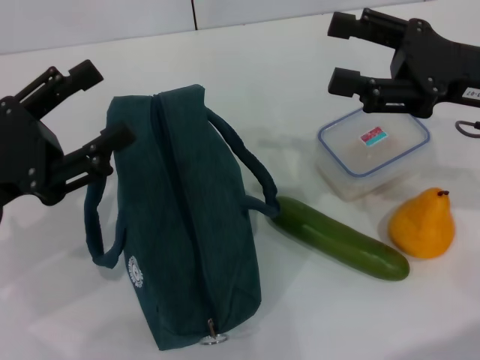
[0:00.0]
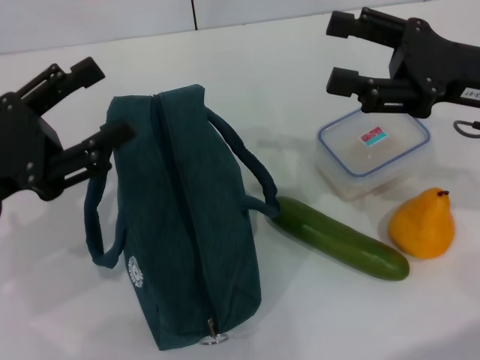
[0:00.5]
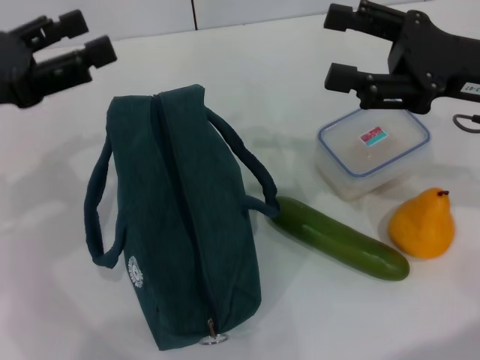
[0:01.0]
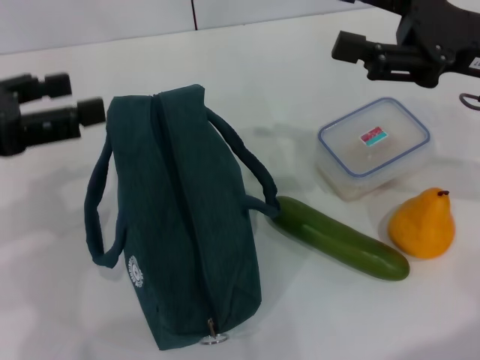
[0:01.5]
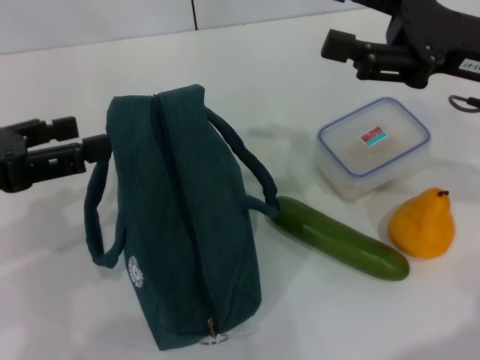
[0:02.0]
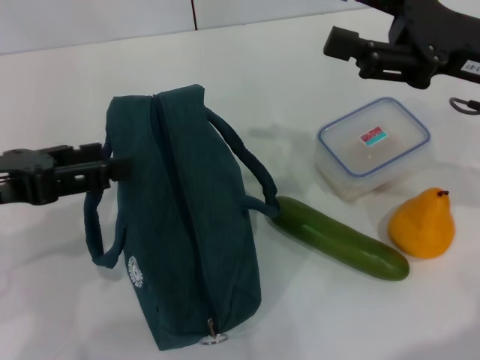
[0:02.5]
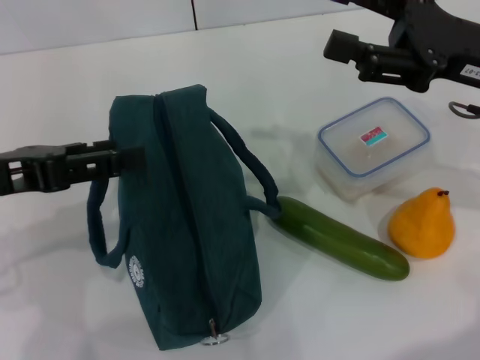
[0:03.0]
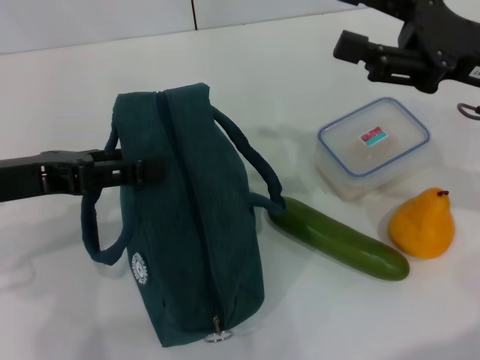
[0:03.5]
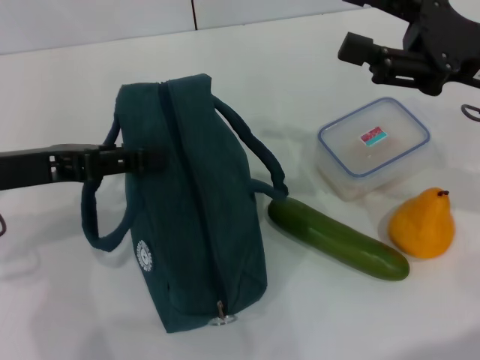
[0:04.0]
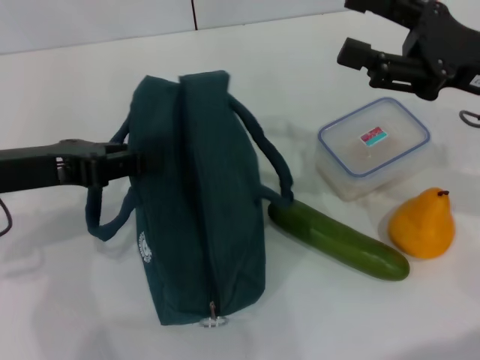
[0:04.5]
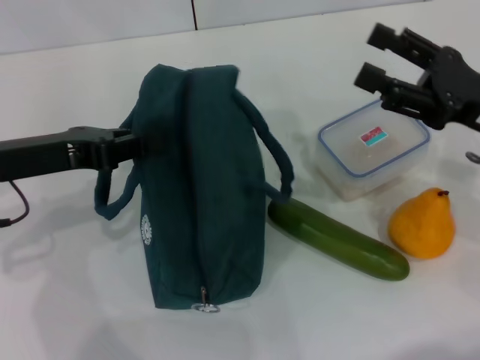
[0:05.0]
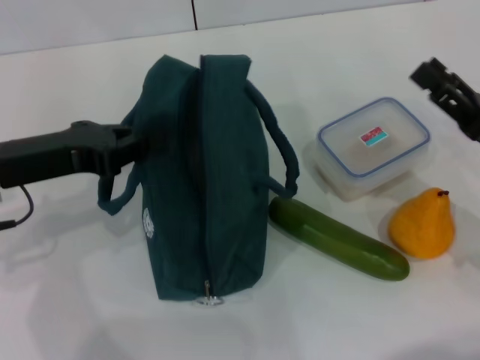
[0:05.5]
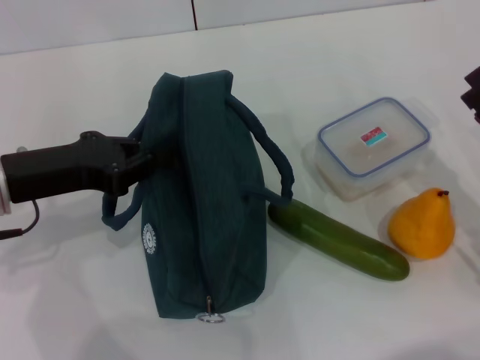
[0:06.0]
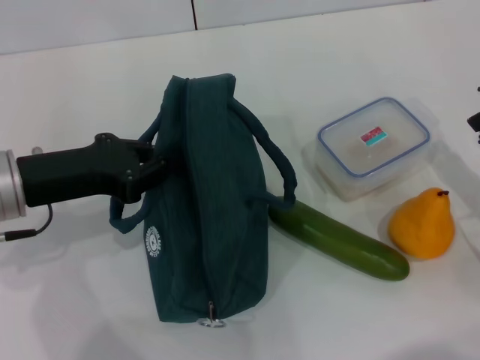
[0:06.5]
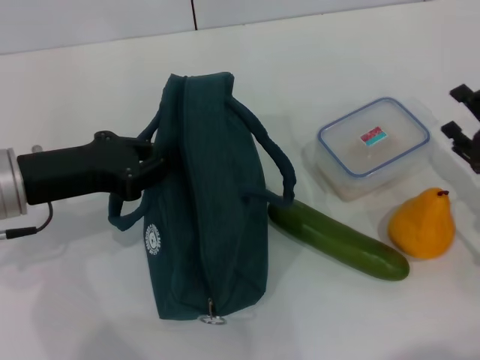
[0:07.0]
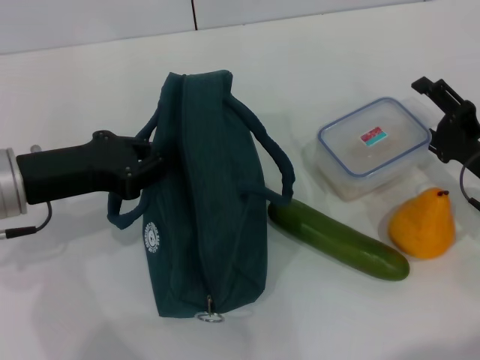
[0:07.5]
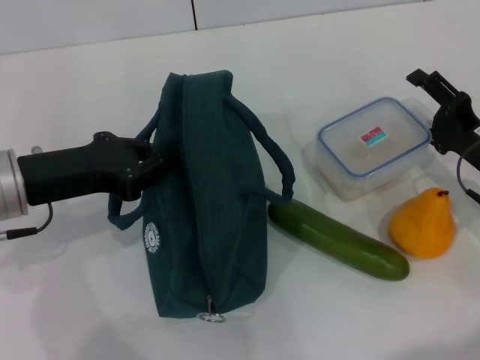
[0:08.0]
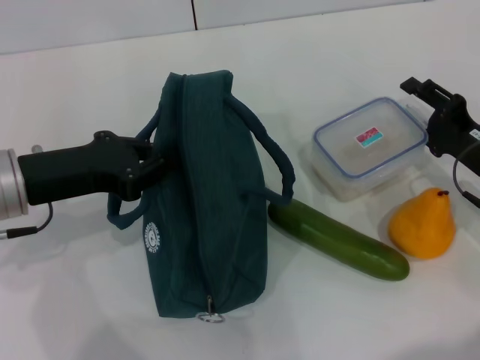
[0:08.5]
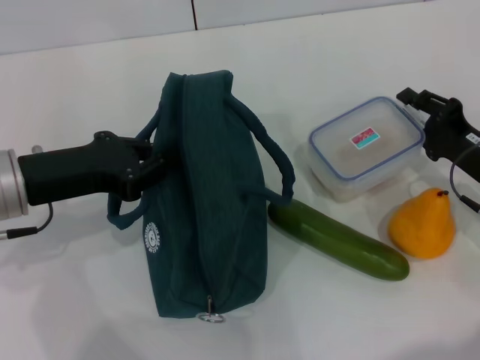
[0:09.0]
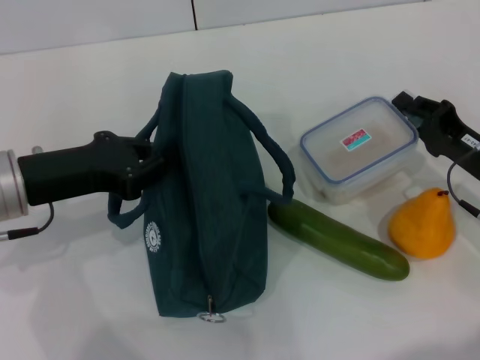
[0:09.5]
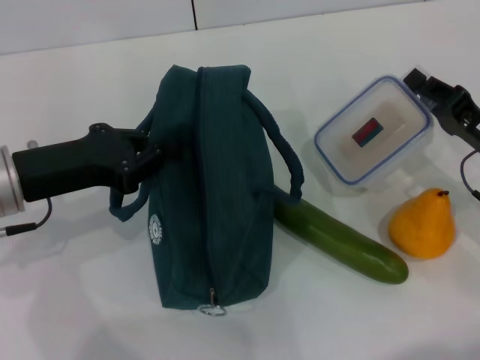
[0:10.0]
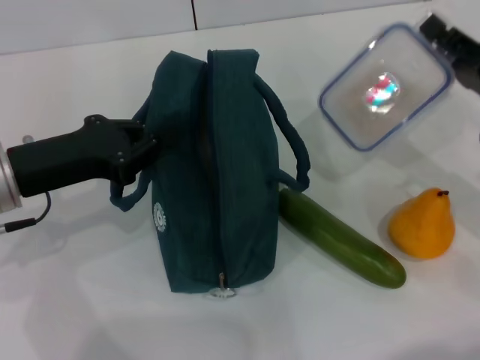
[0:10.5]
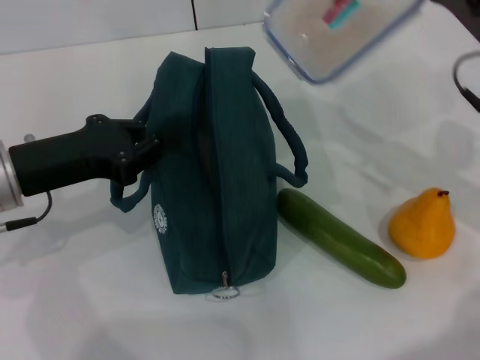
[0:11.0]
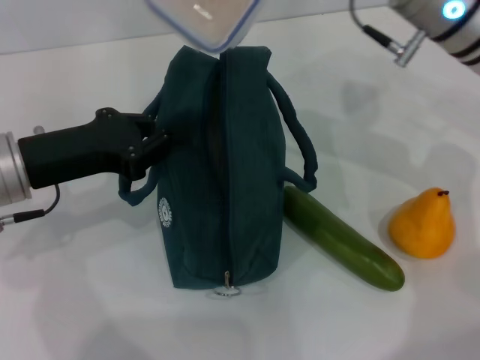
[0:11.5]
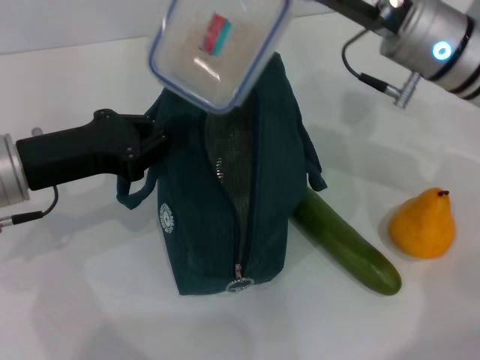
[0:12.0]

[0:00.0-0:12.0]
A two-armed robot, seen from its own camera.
Step, 0:00.0 to 0:05.5: Hold the lunch bag with your left hand.
Step, 0:06.0 to 0:09.5: Pick up the lunch box with your right hand.
0:00.0 to 0:02.0: The left gripper is displaced upward by about 10 cm.
0:02.0 to 0:04.0: The left gripper ends up some 5 cm from where it was.
0:04.0 to 0:06.0: The right gripper moves downward and backward, roughly 15 cm. The left gripper closes.
0:06.0 to 0:08.0: The right gripper goes about 5 cm forward.
0:08.0 to 0:10.0: The right gripper closes up.
0:10.0 to 0:12.0: The right gripper heads upward, to the left and forward, covering approximately 20 cm.

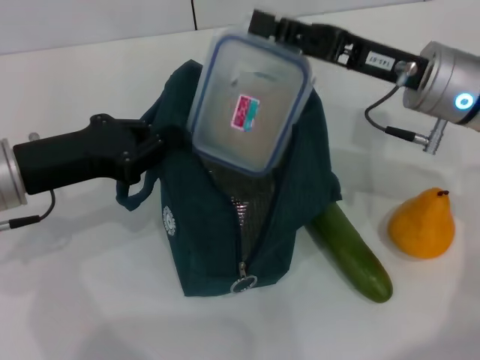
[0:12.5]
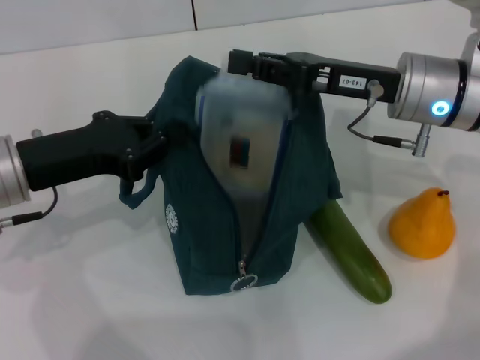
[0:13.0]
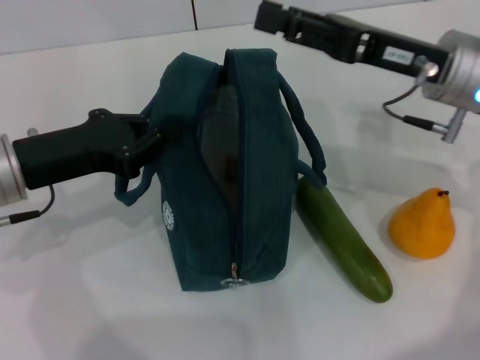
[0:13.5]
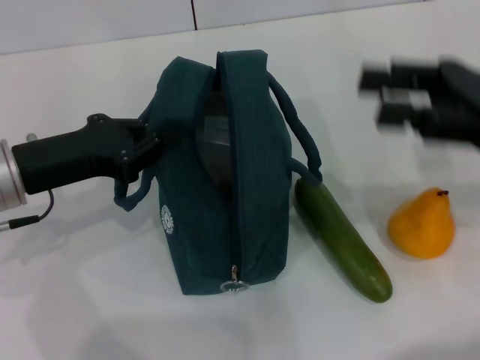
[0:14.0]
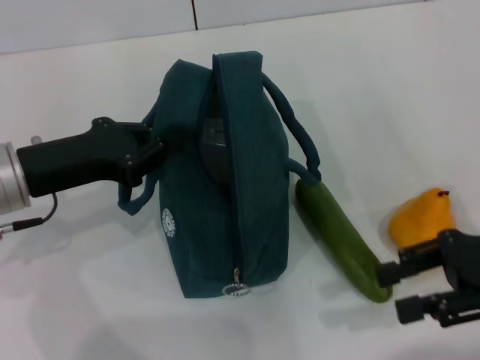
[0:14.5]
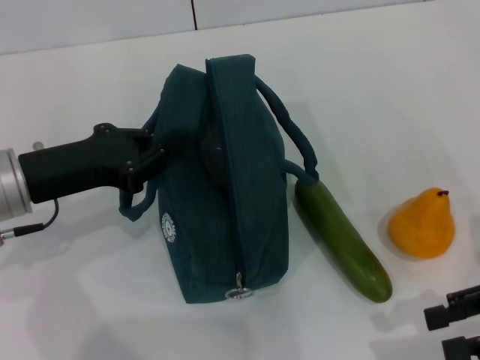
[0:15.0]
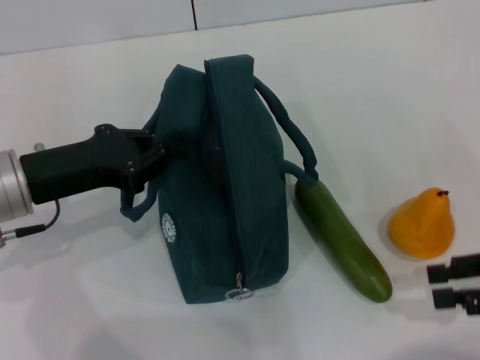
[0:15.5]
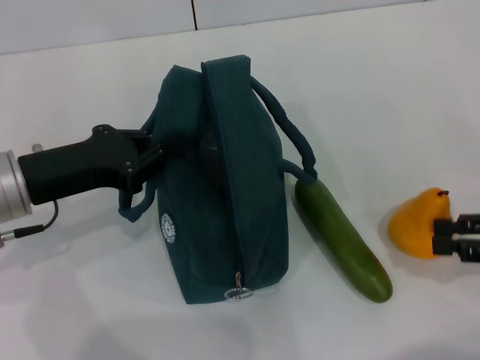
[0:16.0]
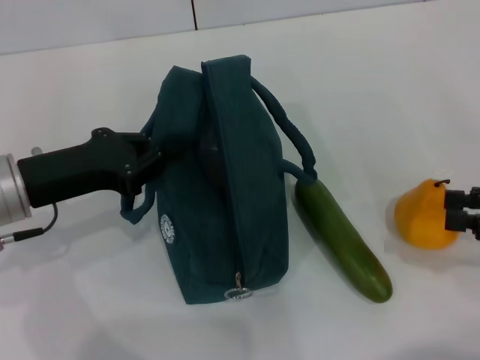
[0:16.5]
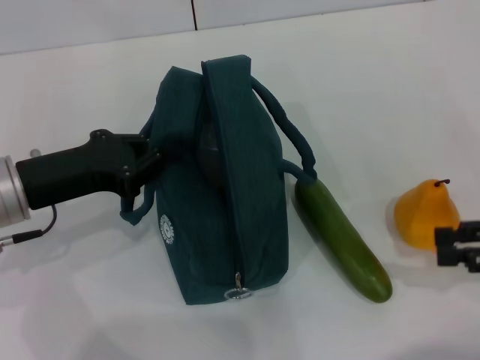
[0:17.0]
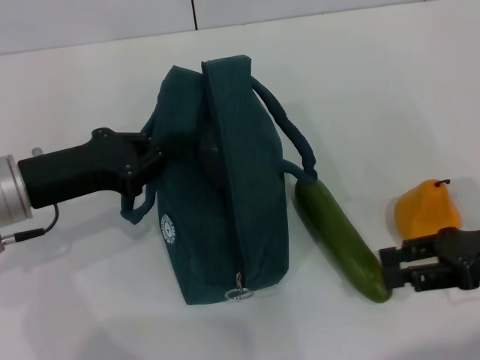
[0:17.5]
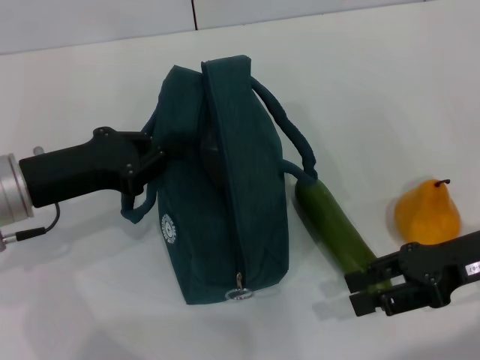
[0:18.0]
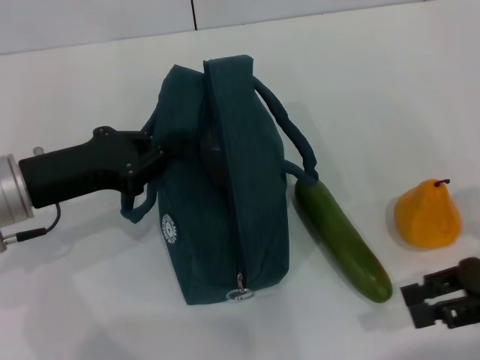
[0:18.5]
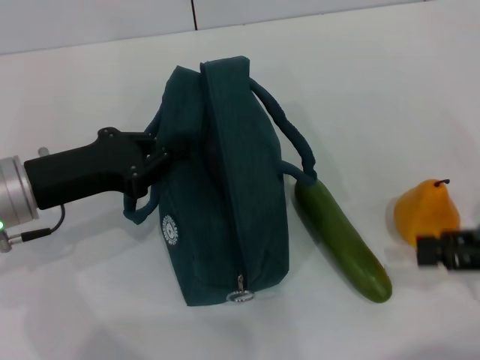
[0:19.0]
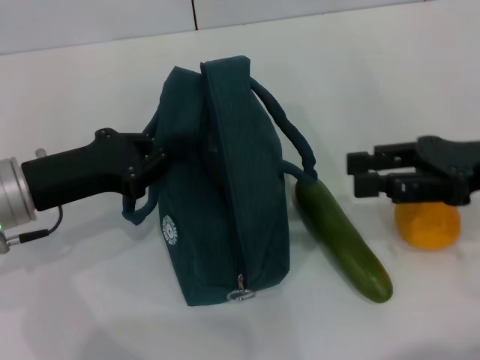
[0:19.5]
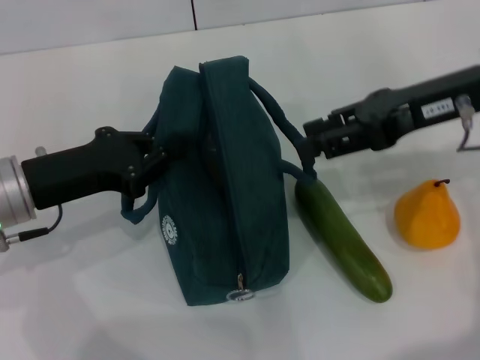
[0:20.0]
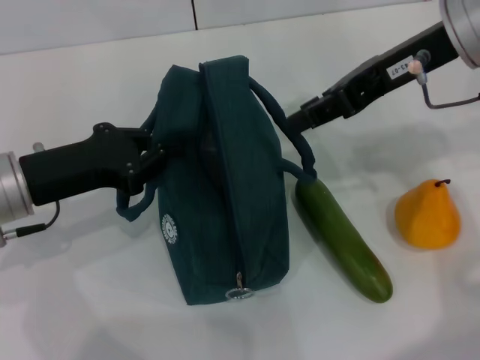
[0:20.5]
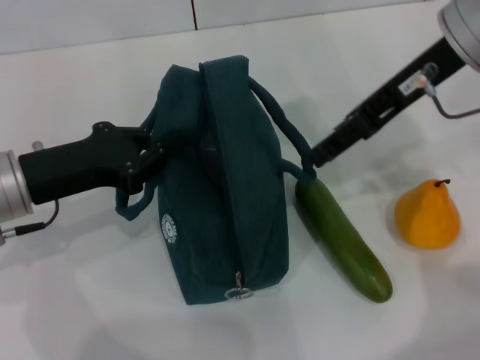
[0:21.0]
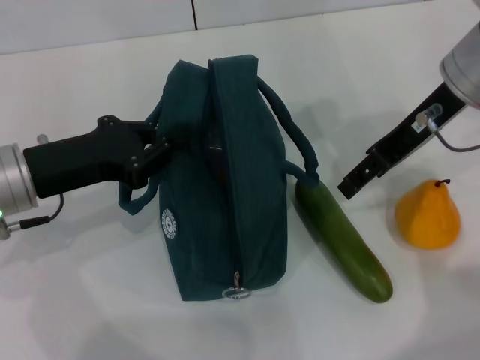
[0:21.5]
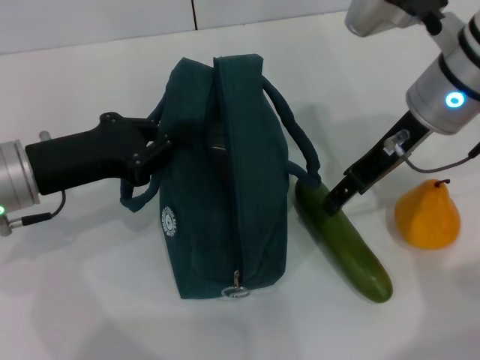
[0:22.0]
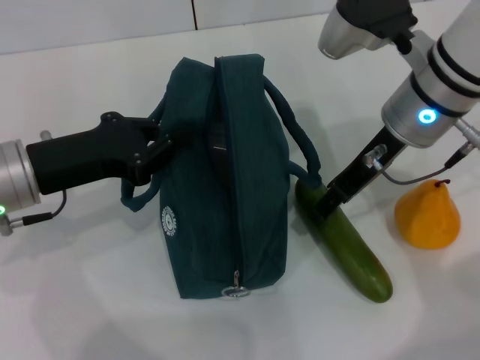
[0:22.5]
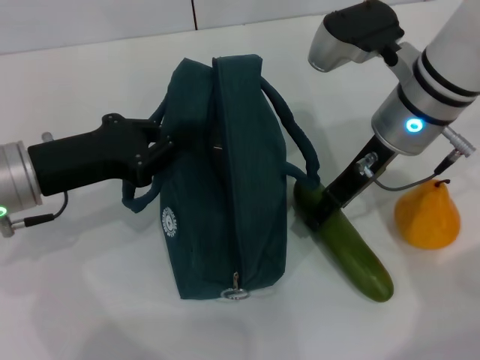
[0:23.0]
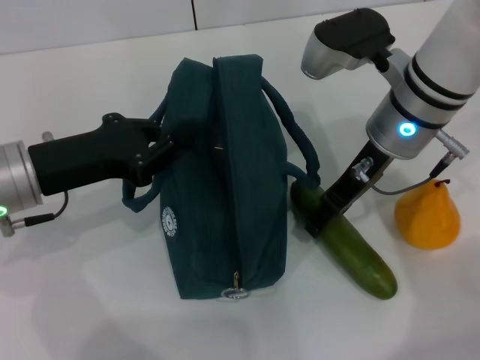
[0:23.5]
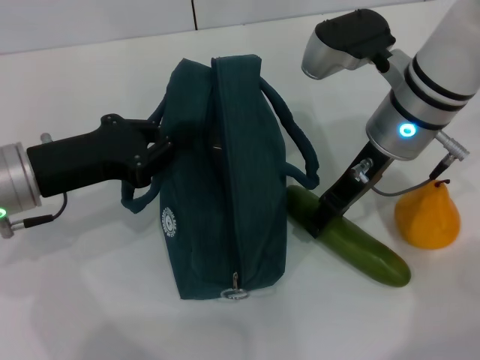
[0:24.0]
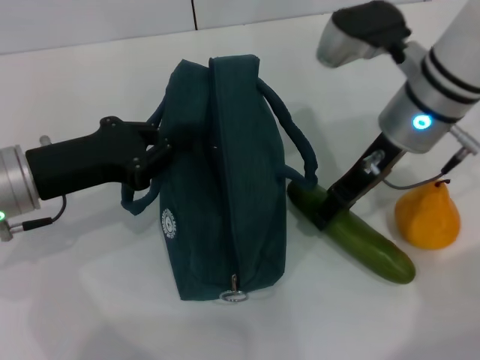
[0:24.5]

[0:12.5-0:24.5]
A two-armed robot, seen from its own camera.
Step, 0:13.5 to 0:24.0: Pick up the cucumber with your right hand.
0:12.5 to 0:14.5: The right gripper shifts approximately 15 cm backward and to the right.
0:14.5 to 0:16.5: The right gripper goes approximately 10 cm to the right.
0:18.5 to 0:20.5: The right gripper heads upward, to the left and forward, covering some 25 cm.
0:20.5 to 0:22.5: The right gripper heads downward, covering about 10 cm, and opens its fingers.
0:22.5 to 0:24.5: There are only small adjustments of the grippers.

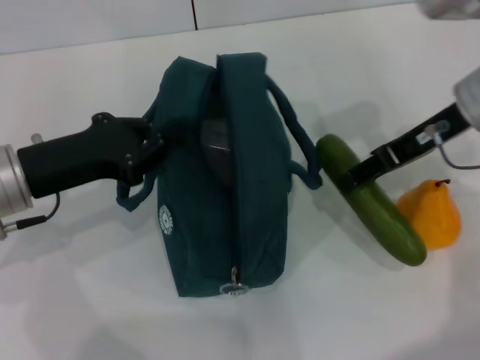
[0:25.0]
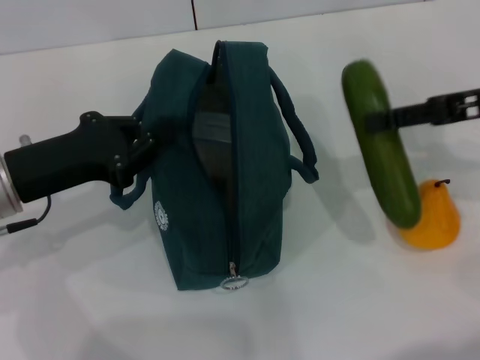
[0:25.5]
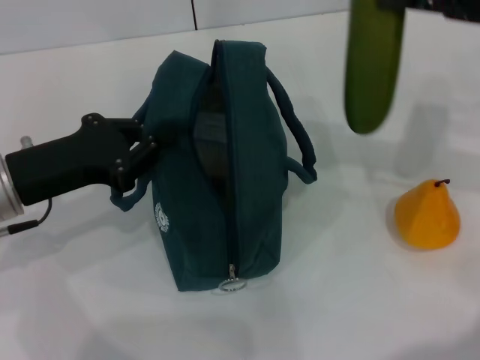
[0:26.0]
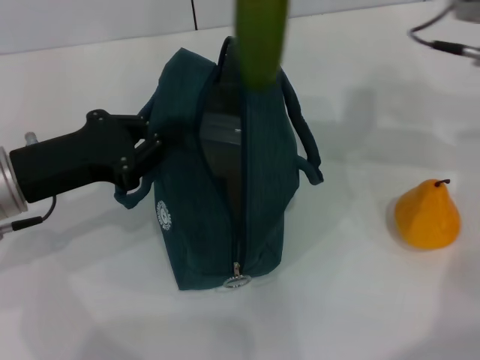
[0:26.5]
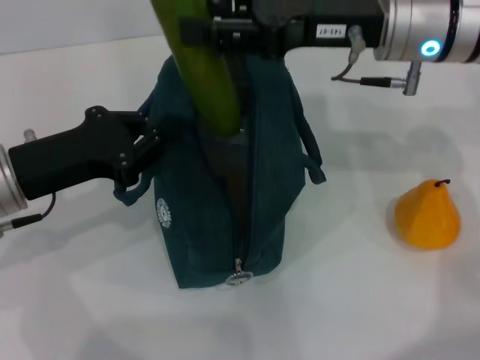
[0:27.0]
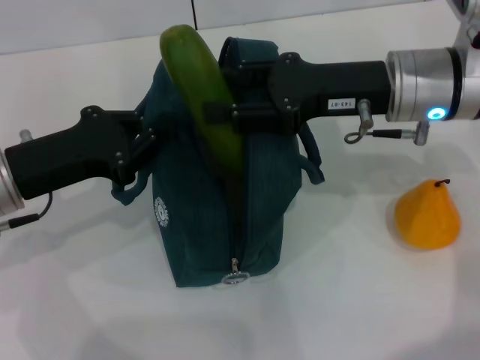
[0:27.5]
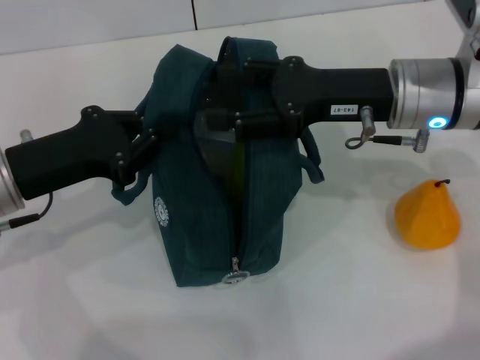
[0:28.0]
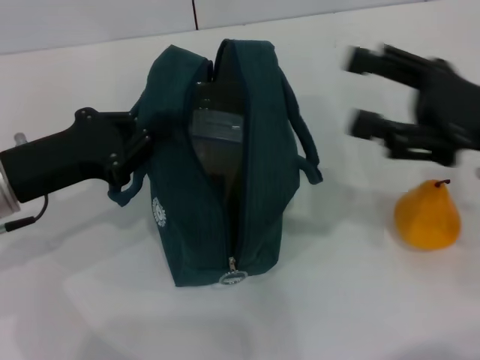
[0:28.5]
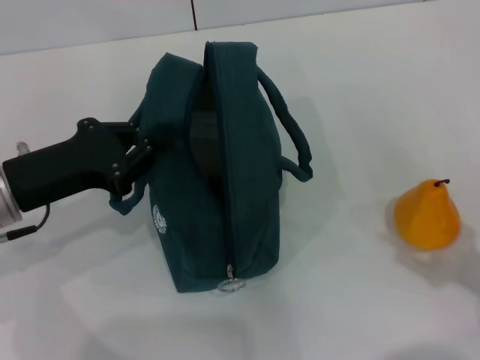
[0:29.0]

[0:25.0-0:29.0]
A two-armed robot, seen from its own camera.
Step, 0:25.0 to 0:28.0: Put the cucumber into the lunch bag with your right hand.
0:25.0 to 0:27.0: The right gripper moves to the left, about 5 cm.
0:27.0 to 0:29.0: The right gripper is displaced backward, to the right and downward by approximately 30 cm.
